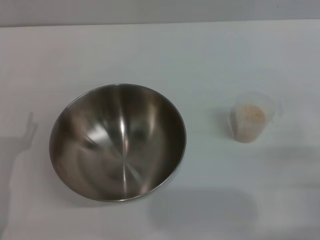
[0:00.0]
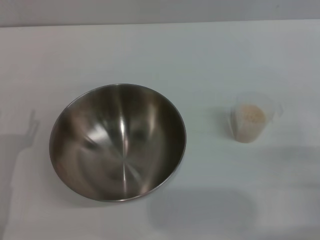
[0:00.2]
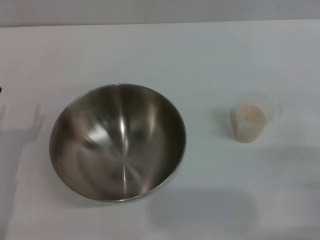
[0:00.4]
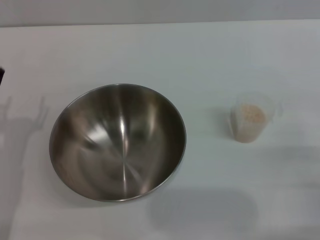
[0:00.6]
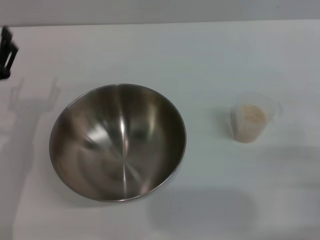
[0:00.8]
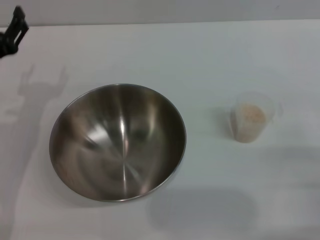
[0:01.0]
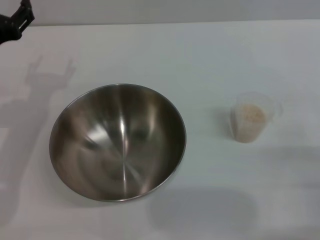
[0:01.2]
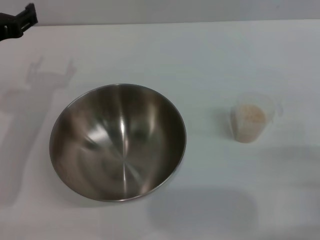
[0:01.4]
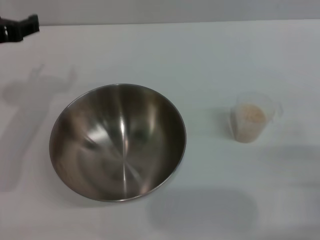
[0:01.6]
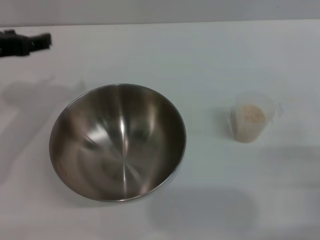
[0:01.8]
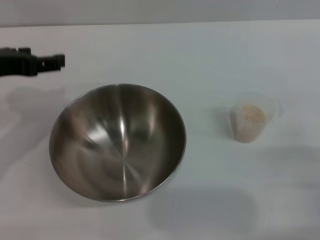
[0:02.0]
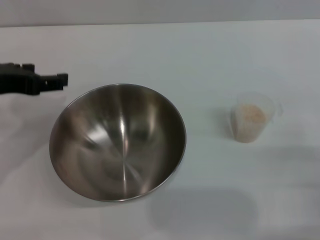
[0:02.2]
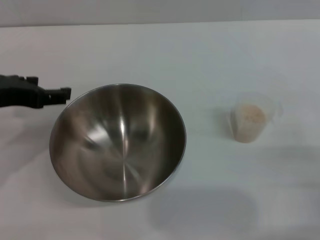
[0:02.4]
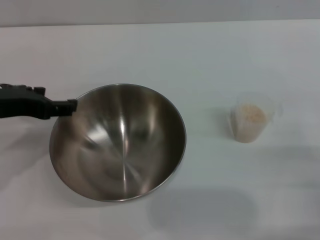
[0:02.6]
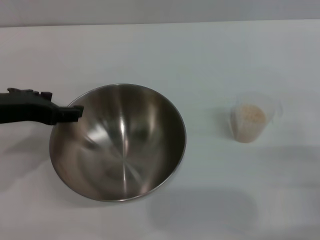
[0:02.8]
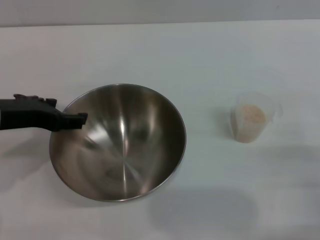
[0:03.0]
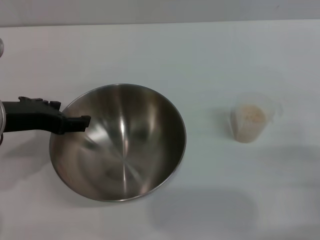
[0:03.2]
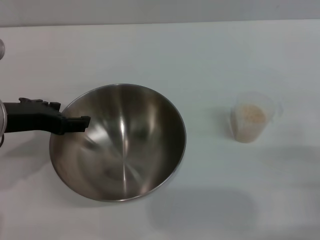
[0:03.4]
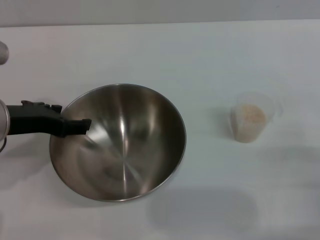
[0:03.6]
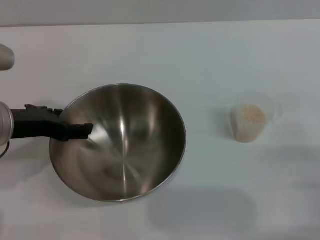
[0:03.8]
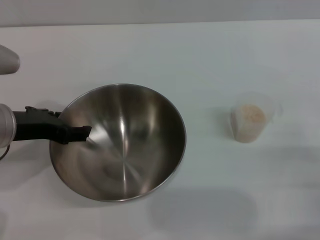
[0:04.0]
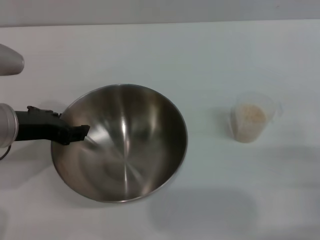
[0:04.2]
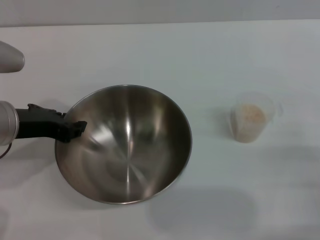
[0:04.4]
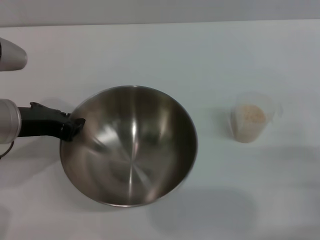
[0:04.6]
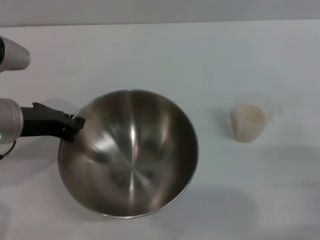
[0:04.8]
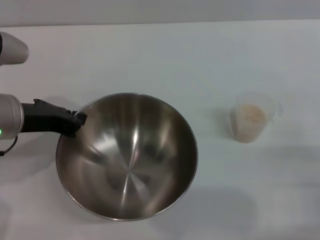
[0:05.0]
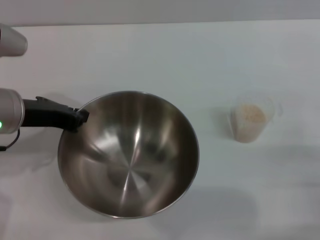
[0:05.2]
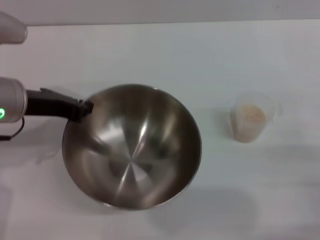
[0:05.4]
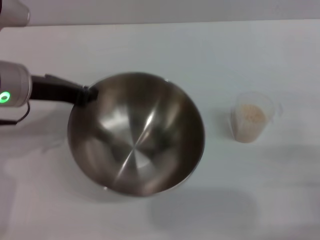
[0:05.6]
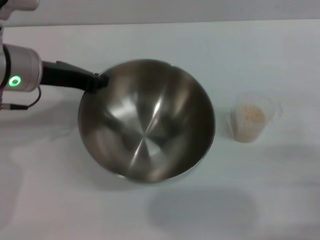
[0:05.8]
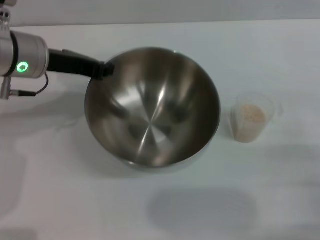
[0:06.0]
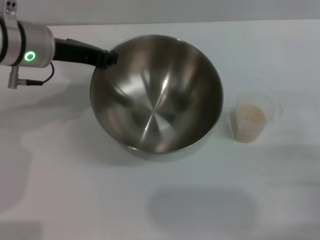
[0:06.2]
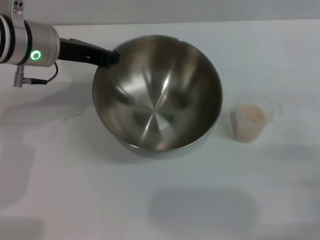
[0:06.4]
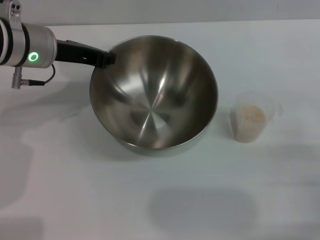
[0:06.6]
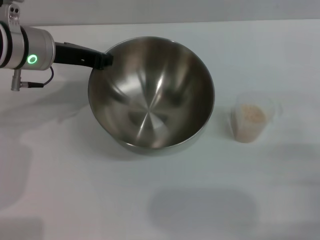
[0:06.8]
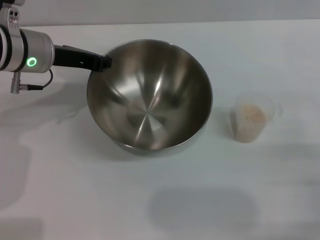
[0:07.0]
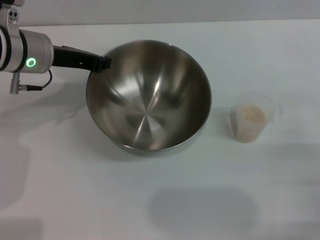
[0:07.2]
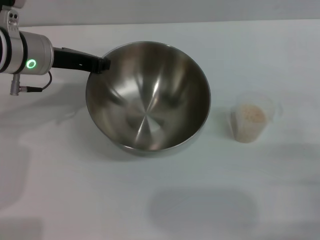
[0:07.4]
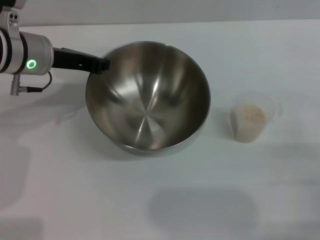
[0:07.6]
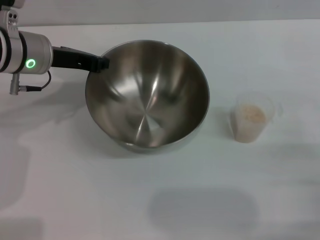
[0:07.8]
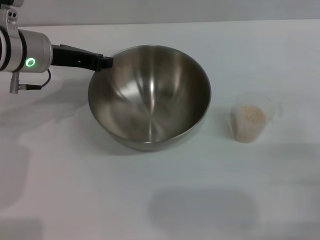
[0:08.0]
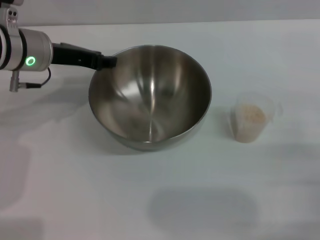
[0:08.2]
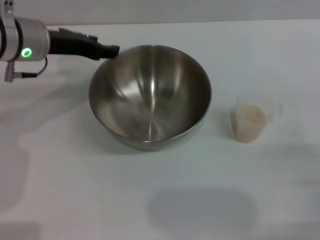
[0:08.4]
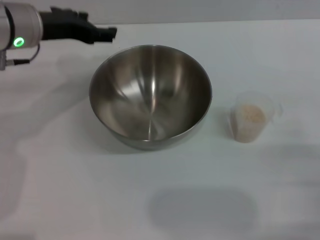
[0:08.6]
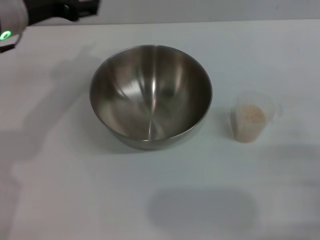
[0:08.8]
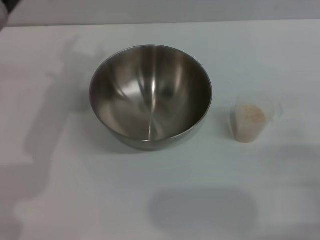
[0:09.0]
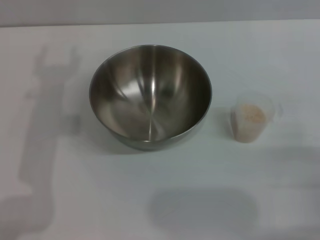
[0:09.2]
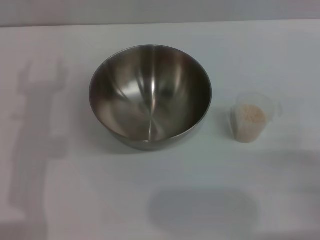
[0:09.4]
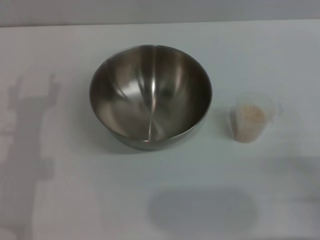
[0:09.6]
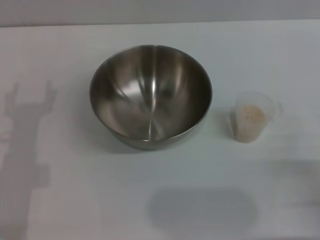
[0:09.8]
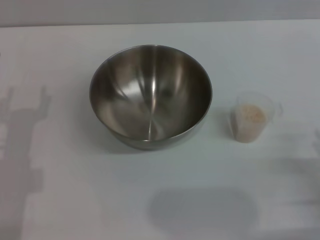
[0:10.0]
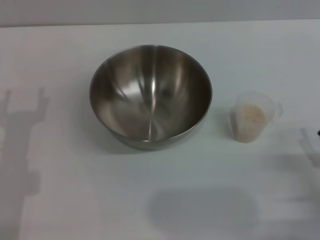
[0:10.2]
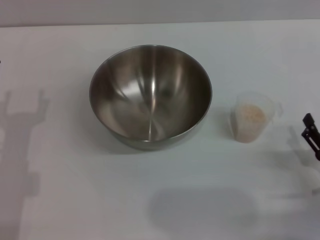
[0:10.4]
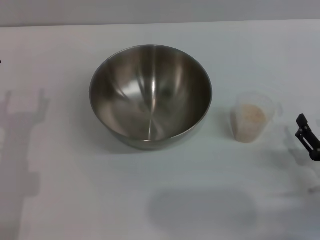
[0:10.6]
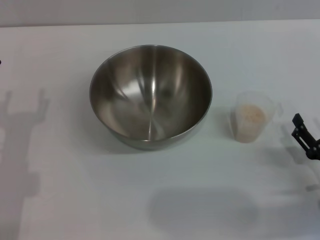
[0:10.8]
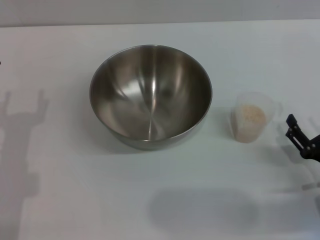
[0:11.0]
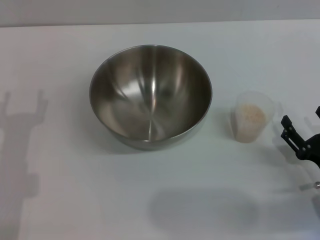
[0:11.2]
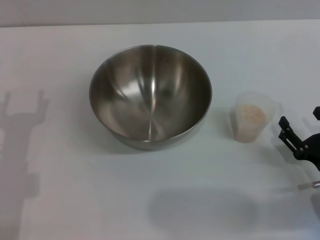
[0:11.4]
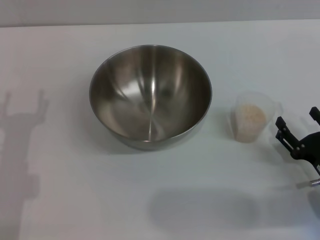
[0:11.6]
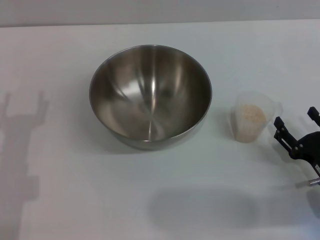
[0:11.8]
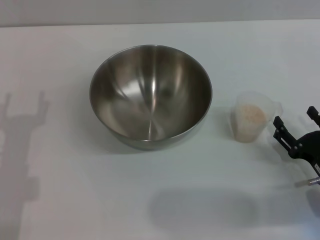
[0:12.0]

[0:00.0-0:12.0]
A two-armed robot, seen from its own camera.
Task of the whole recording: Place the bowl in the middle of the table with one hand and pour the rice from the grain cup into it with the other hand.
Step, 0:00.0 to 0:05.6: Pick up the bowl with the left gripper.
Step, 0:05.8 to 0:08.4: Place the bowl in the center of view with the left gripper.
0:00.0 to 0:01.6: The left gripper moves upward and forward, about 20 cm.
0:01.6 to 0:03.0: The left gripper ends up about 5 cm from where it was.
0:03.0 to 0:04.4: The grippers stay close to where they were, moving slightly.
0:04.4 to 0:06.0: The left gripper is displaced forward by approximately 10 cm, and closes.
0:06.0 to 0:07.6: The grippers move only a little.
0:07.6 to 0:09.0: The left gripper moves backward and upward, some 10 cm, and opens up.
0:09.0 to 0:10.4: The right gripper moves about 5 cm.
0:10.4 to 0:12.0: The grippers make only small movements.

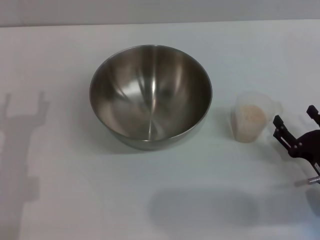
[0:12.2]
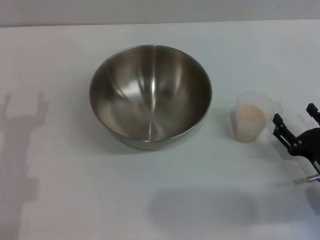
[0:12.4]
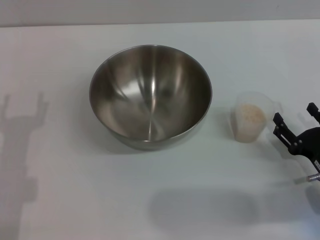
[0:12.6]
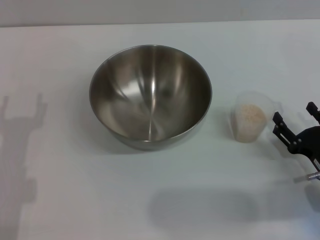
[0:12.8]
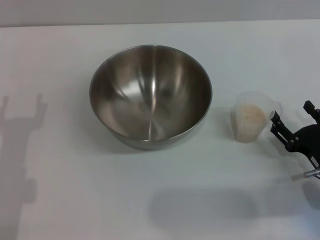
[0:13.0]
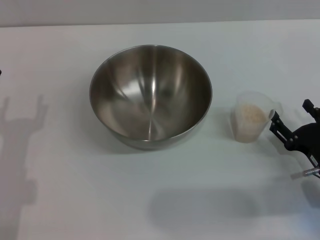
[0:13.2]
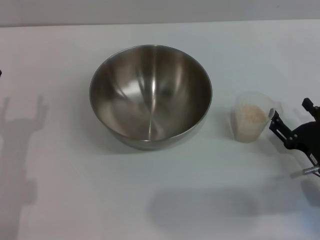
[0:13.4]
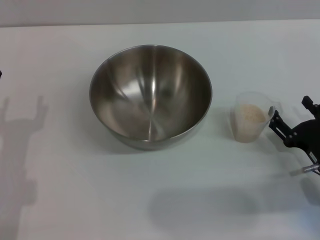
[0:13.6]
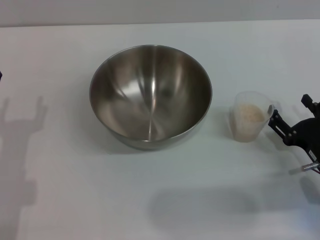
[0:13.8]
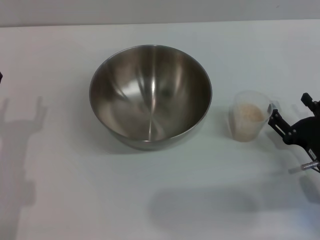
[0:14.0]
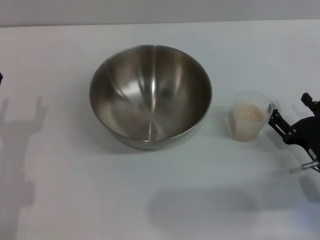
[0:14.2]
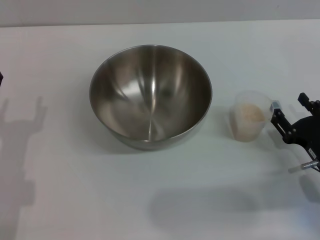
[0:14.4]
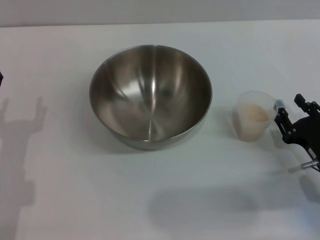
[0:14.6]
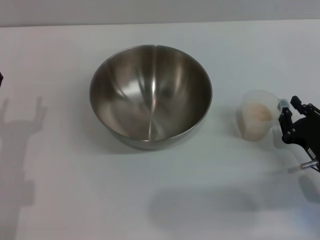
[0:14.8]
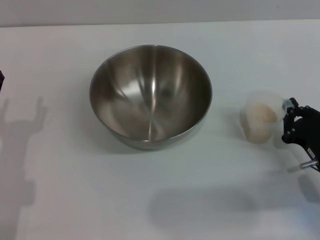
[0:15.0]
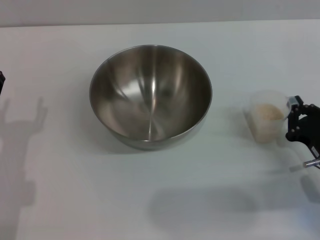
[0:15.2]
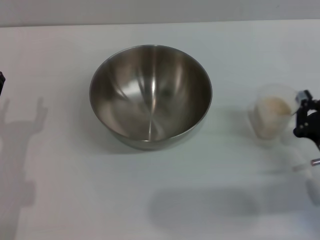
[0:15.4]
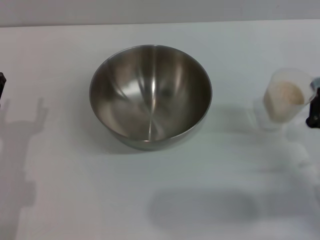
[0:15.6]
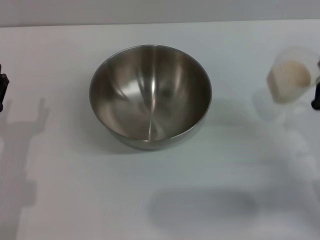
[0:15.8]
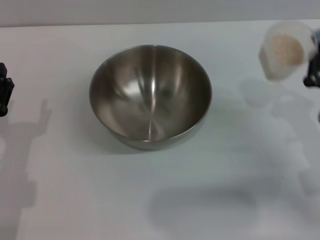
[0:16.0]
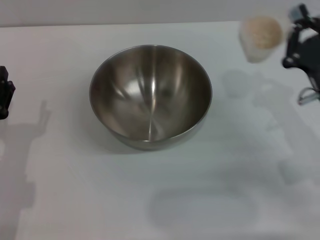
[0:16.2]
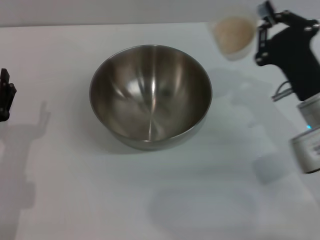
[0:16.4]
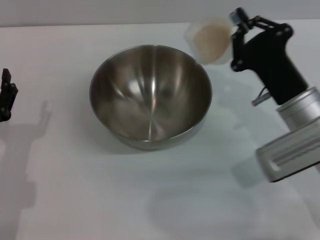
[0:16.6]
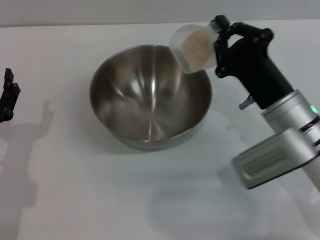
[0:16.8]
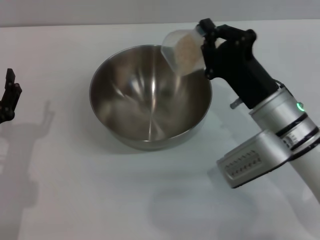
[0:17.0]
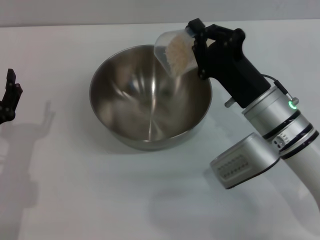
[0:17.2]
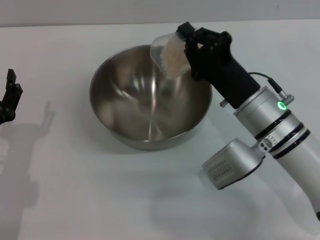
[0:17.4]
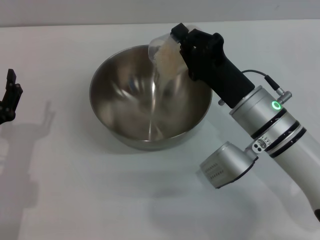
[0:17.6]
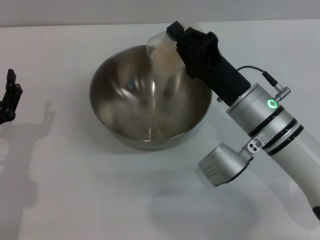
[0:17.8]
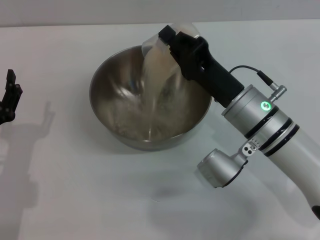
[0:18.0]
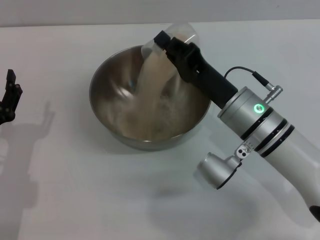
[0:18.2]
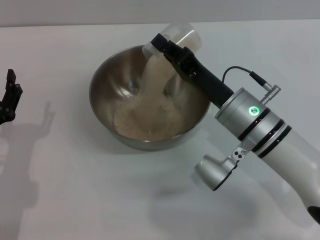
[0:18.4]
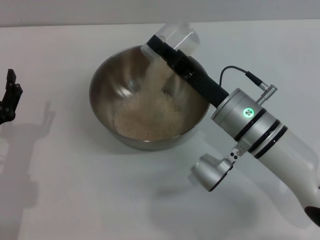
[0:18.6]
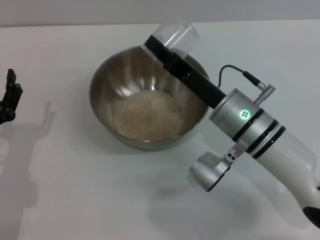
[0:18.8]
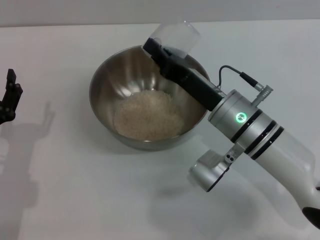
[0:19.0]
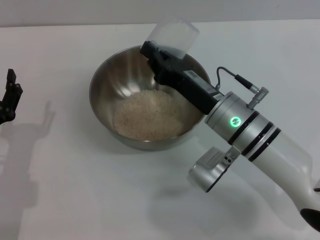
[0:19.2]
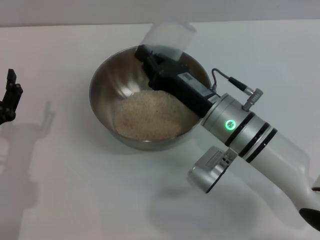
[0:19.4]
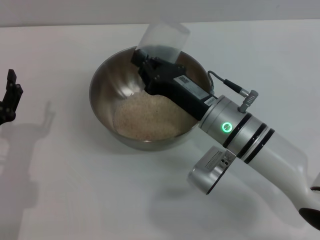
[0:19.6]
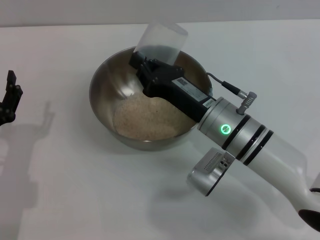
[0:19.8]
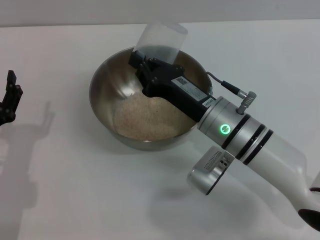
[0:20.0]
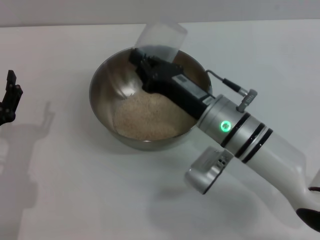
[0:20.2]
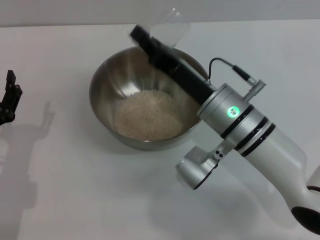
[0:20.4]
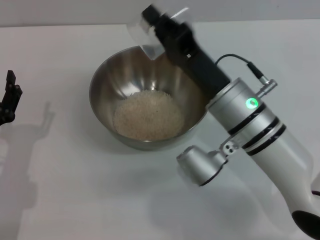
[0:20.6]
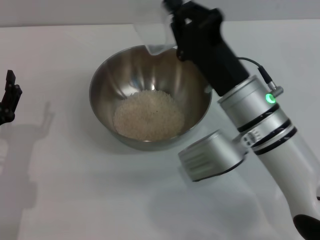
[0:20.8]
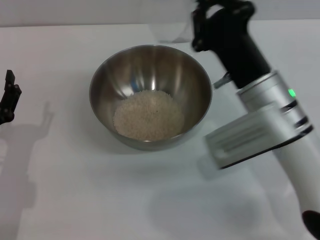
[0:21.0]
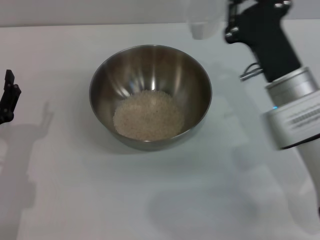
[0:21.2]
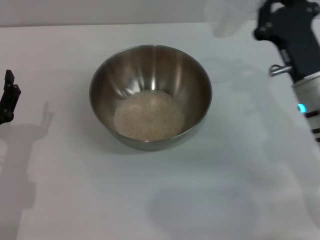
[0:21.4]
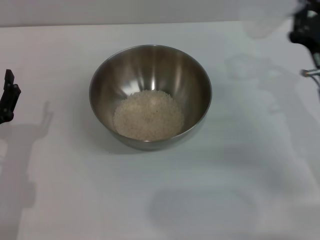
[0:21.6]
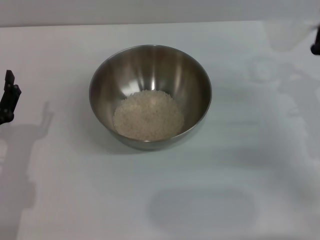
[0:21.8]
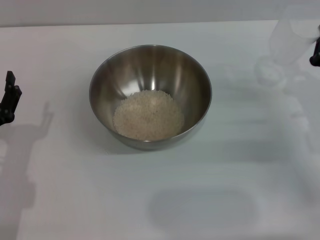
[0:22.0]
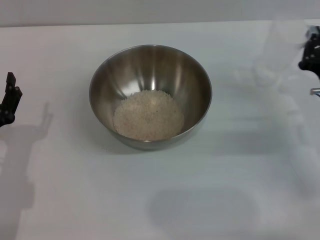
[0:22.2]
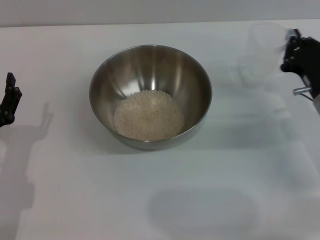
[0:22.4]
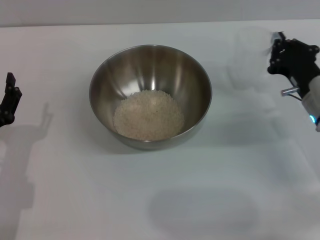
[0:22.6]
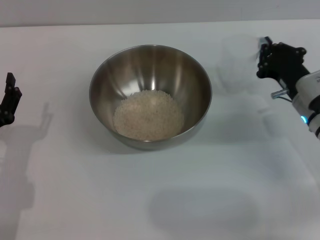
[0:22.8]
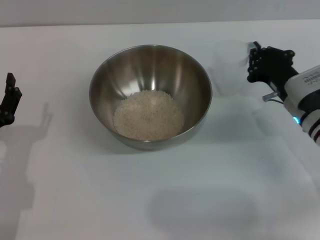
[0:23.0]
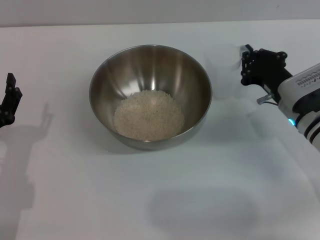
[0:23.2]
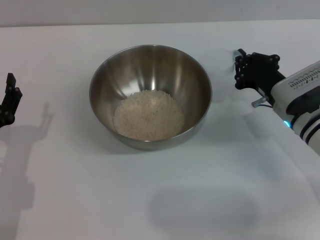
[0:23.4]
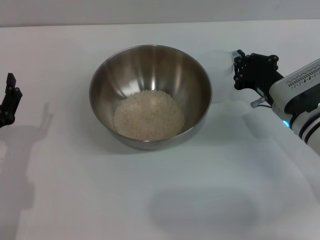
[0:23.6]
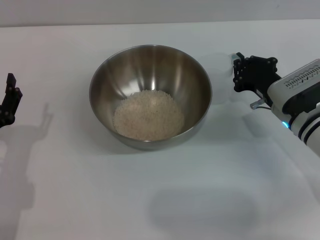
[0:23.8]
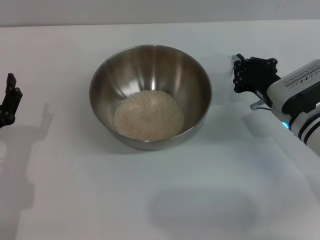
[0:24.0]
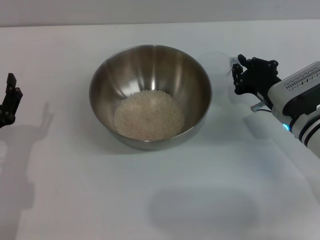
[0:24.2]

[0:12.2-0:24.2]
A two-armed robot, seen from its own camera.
Task of the whole recording: Place the bowl in the middle of the table with one hand and pour the rice from the grain cup into it with the other hand.
Step, 0:12.2 to 0:15.8: Pick up the cup with rice in it with the right gripper.
Step, 0:16.0 to 0:20.2: Pour the rice from the cup into the bowl with the right gripper.
0:12.2 to 0:13.8: The grippers move only a little.
0:13.8 to 0:15.2: The right gripper closes.
0:15.2 to 0:16.6: The right gripper heads to the left, upward and forward, covering about 15 cm.
0:16.6 to 0:18.2: The right gripper moves to the left, some 5 cm.
0:19.8 to 0:21.2: The right gripper travels to the right by approximately 5 cm.
0:21.2 to 0:22.6: The right gripper shifts some 10 cm to the right and downward.
0:22.6 to 0:24.2: The grippers stay close to where they were, moving slightly.
